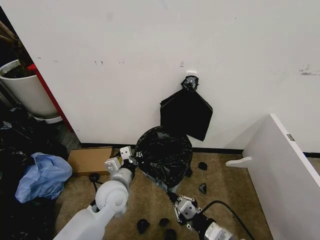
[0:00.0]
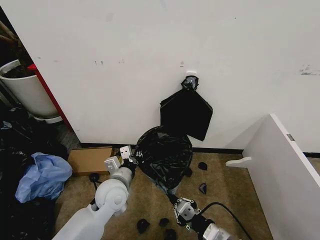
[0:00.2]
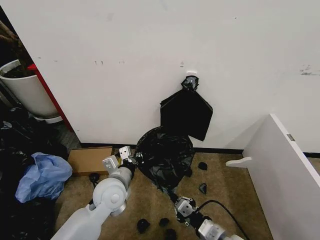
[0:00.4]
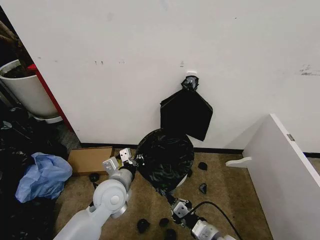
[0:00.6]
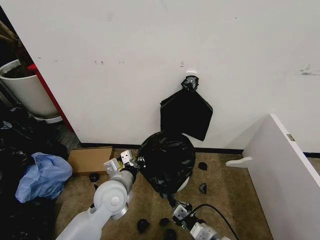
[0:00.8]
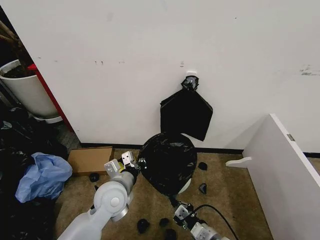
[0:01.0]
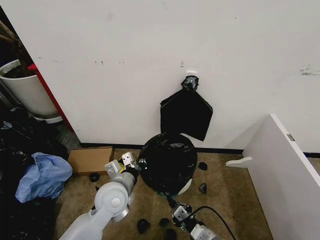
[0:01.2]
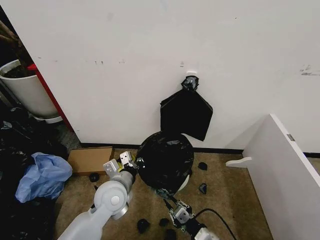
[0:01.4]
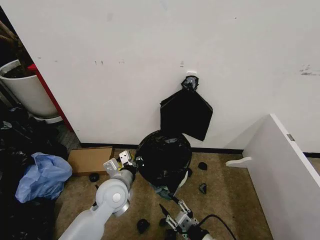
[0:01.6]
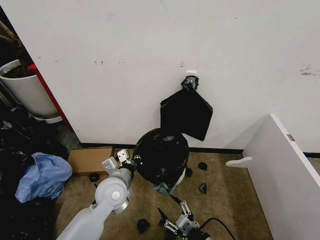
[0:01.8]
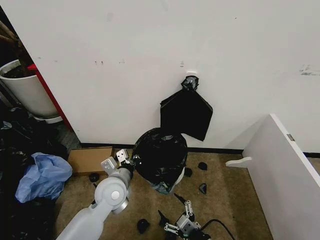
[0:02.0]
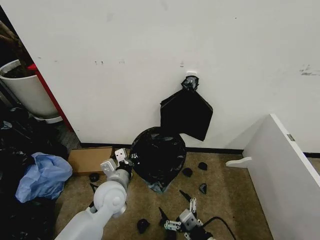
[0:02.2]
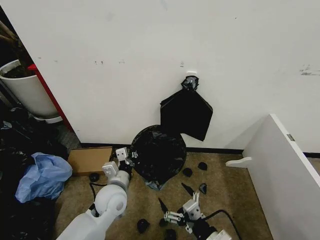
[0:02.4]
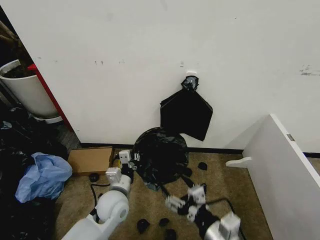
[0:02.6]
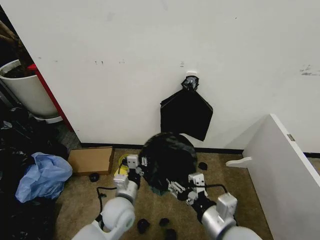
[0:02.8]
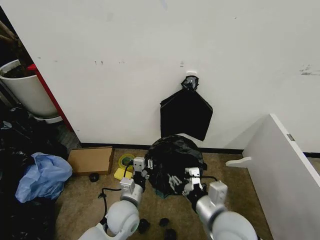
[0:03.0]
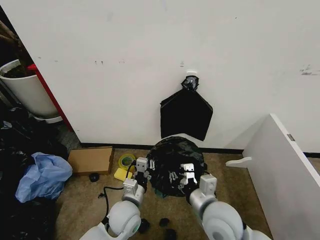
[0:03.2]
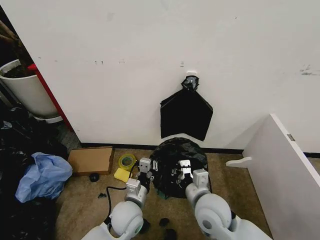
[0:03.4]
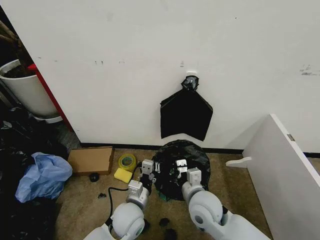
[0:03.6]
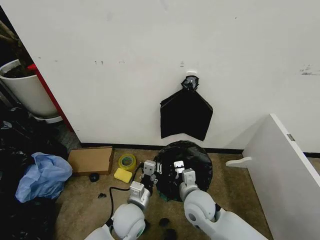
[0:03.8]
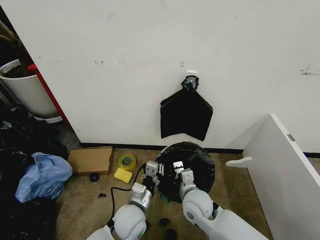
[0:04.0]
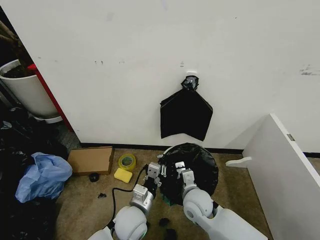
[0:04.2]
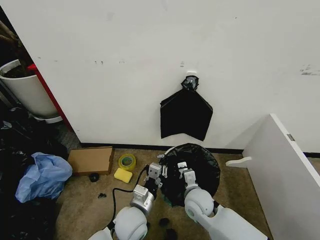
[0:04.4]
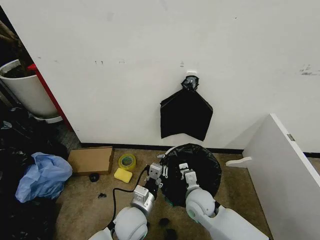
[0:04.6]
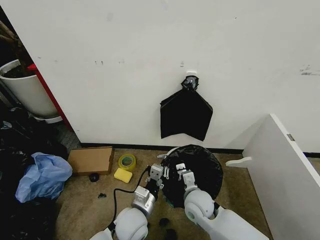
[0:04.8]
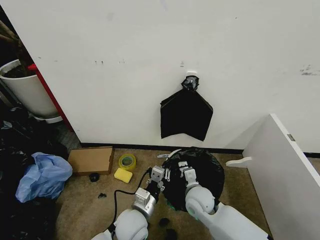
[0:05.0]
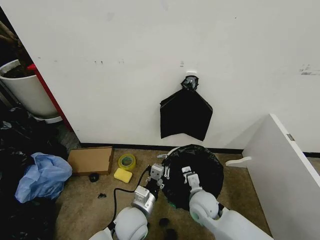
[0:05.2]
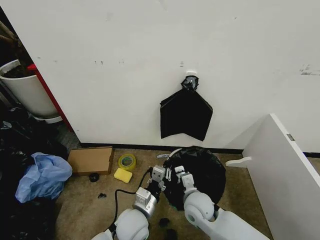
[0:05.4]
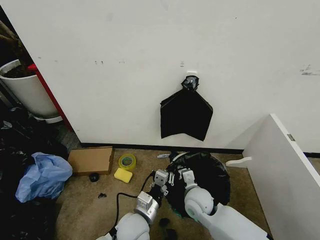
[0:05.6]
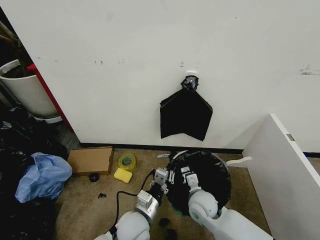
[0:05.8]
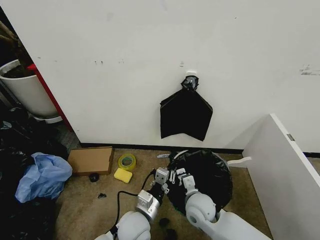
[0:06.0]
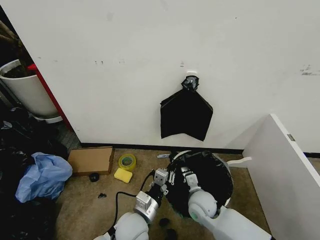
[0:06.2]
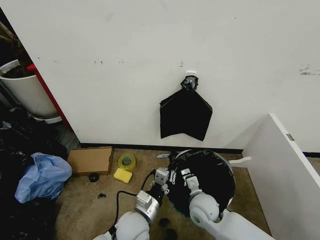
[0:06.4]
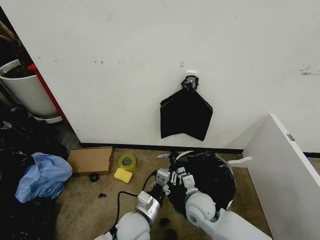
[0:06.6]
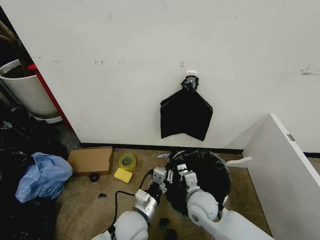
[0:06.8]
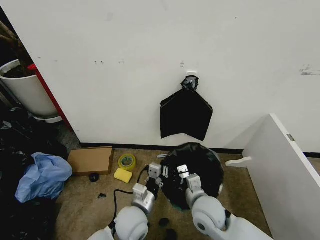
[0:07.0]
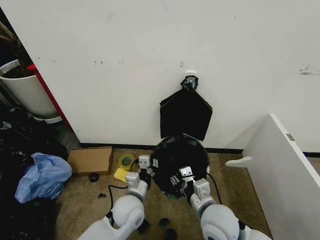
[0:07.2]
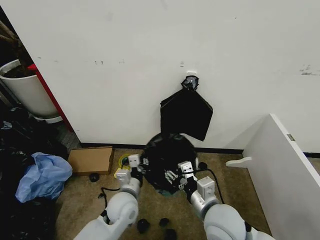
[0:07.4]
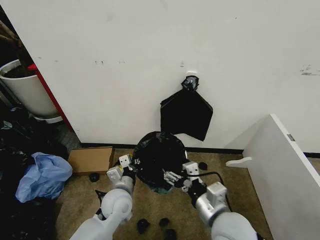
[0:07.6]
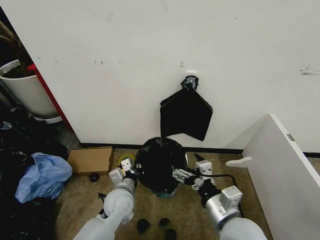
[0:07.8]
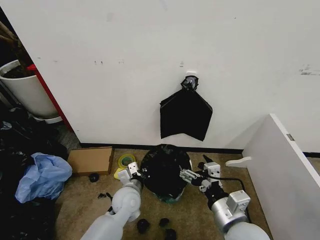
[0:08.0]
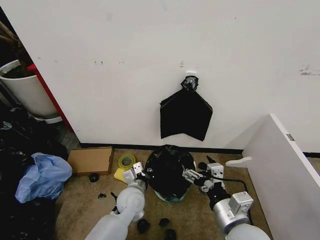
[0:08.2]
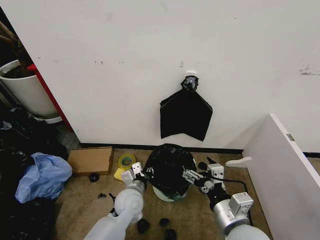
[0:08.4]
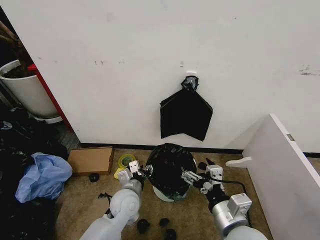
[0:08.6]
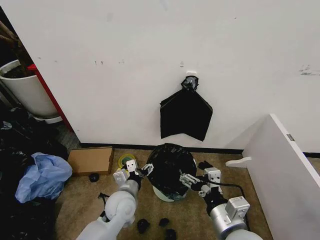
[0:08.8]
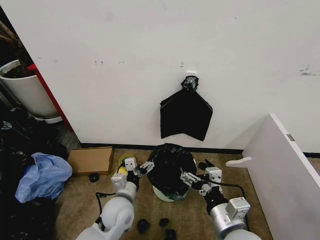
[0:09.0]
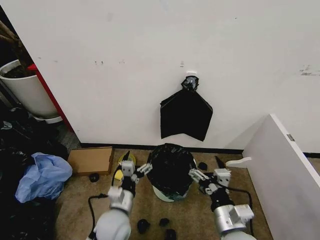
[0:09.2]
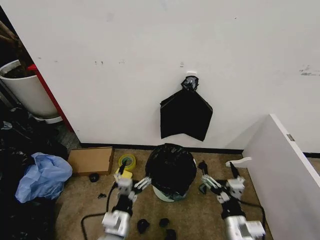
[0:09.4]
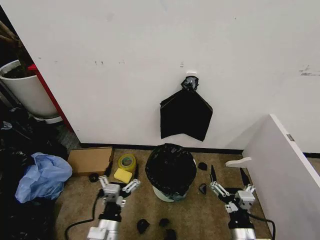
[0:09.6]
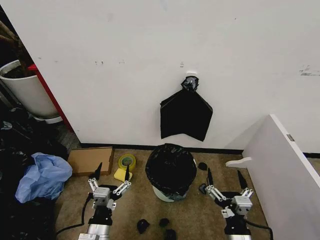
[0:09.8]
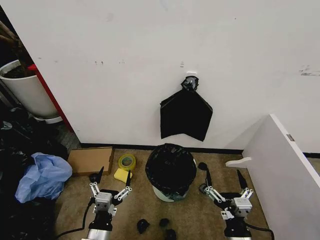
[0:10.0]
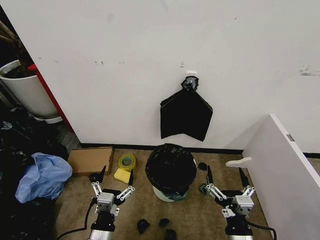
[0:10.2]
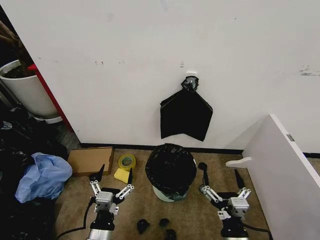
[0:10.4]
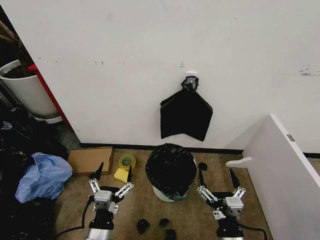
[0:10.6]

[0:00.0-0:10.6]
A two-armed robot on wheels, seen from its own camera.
Task of the whole recording: Place the garbage bag over the trash bin.
0:00.0 to 0:01.6: The right gripper moves downward, some 10 cm, and opens its fingers.
0:01.6 to 0:03.0: The right gripper goes roughly 15 cm upward, and opens and closes again, while the left gripper heads downward, covering roughly 5 cm.
0:03.0 to 0:04.6: The right gripper moves downward and forward, about 15 cm, and closes.
0:04.6 to 0:06.0: The grippers stay close to where they were, moving slightly.
0:06.0 to 0:07.6: The left gripper is displaced forward and to the left by about 10 cm. Meanwhile the right gripper is displaced upward and backward by approximately 15 cm, and opens up.
0:07.6 to 0:09.0: The left gripper opens its fingers.
0:09.0 to 0:10.6: The left gripper goes about 15 cm backward. The right gripper travels downward and backward by about 10 cm.
